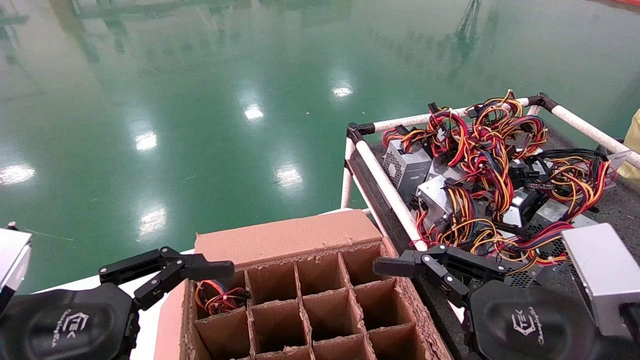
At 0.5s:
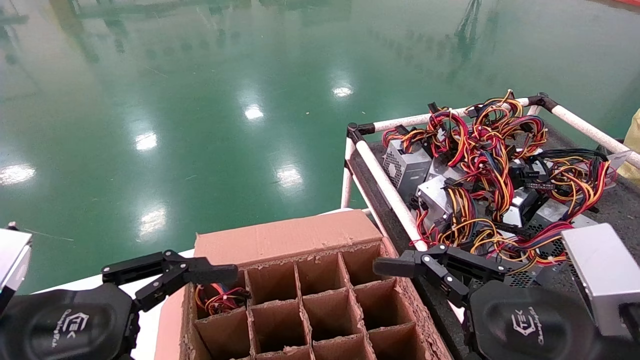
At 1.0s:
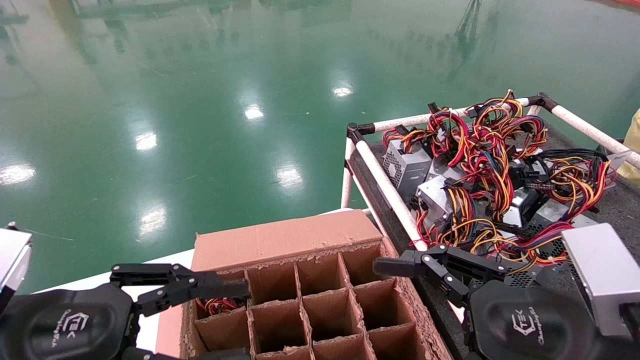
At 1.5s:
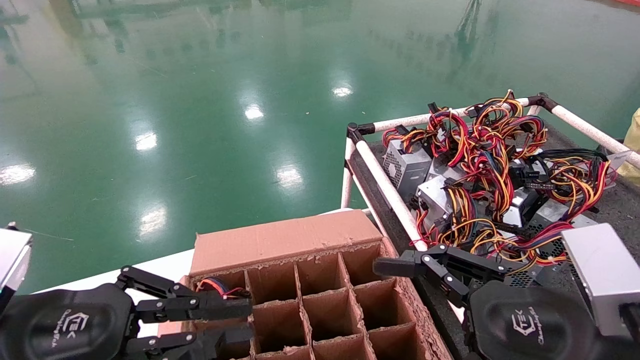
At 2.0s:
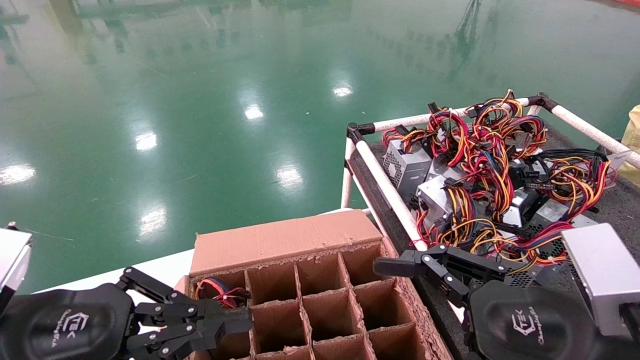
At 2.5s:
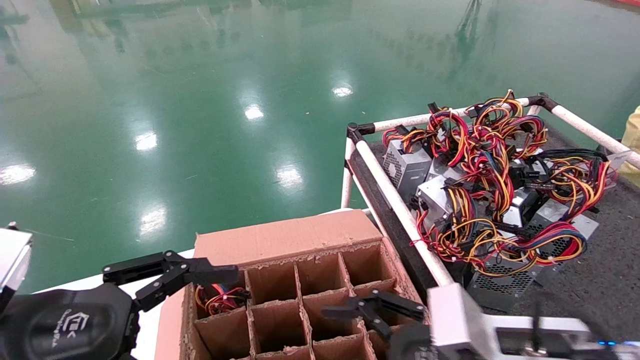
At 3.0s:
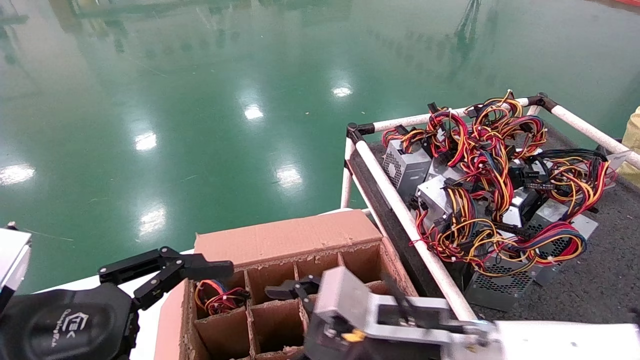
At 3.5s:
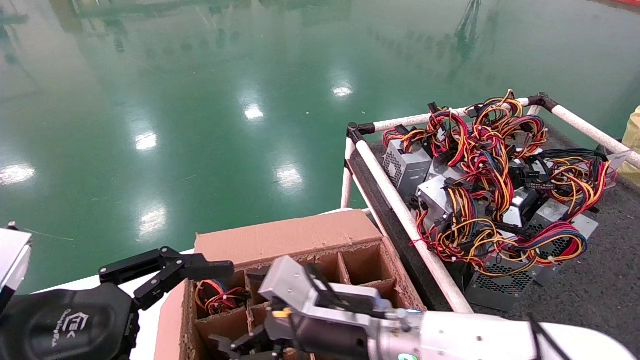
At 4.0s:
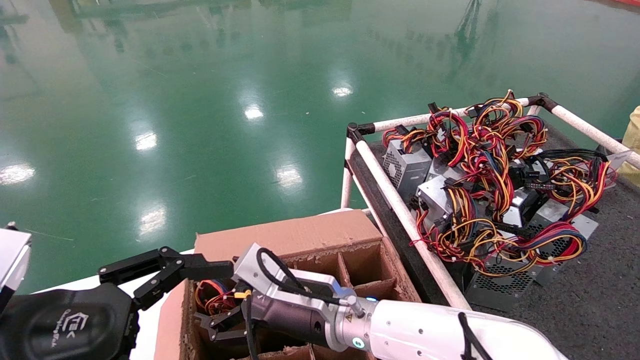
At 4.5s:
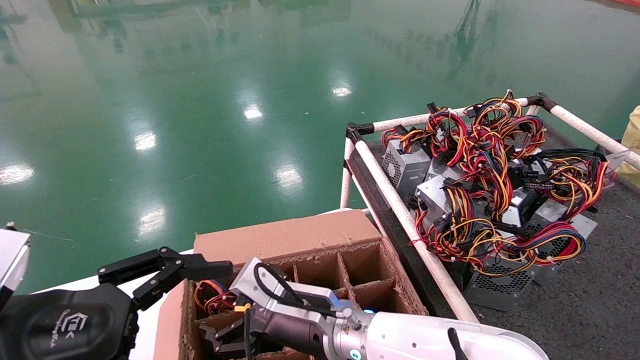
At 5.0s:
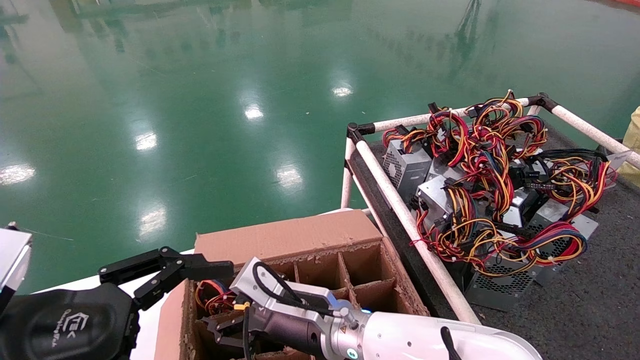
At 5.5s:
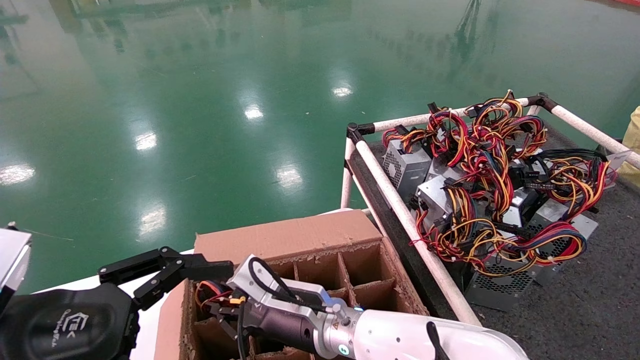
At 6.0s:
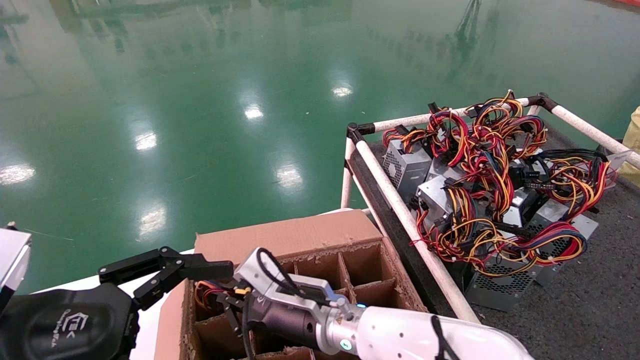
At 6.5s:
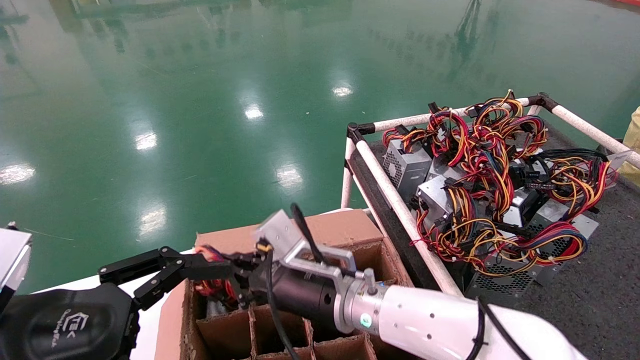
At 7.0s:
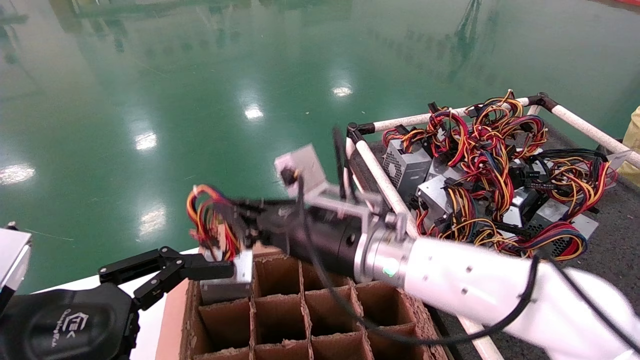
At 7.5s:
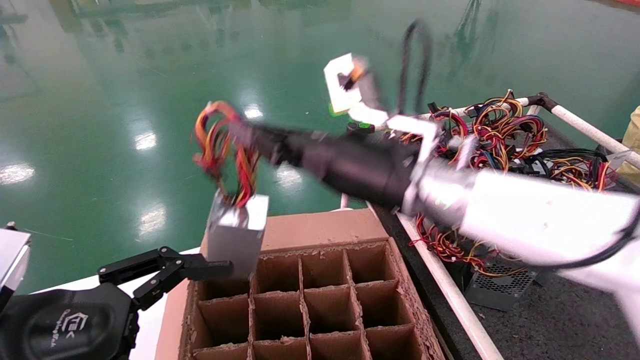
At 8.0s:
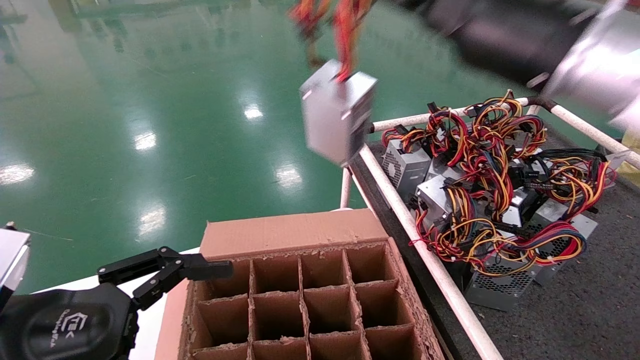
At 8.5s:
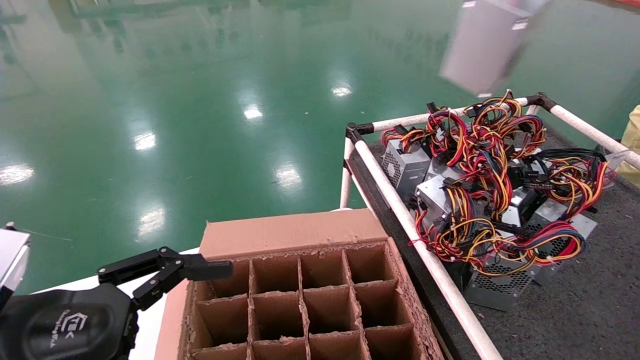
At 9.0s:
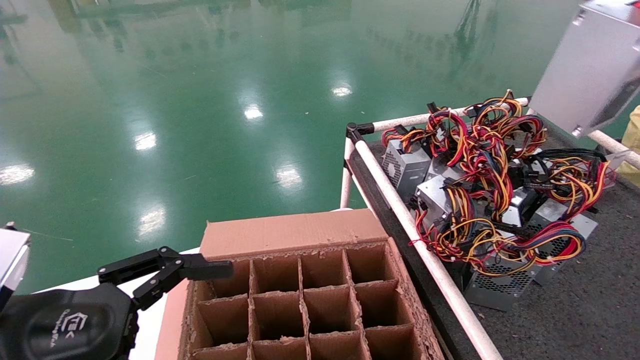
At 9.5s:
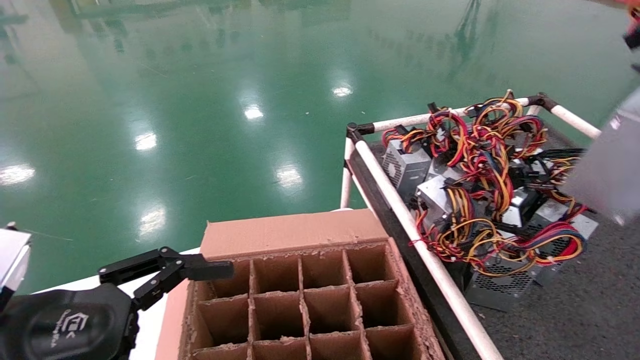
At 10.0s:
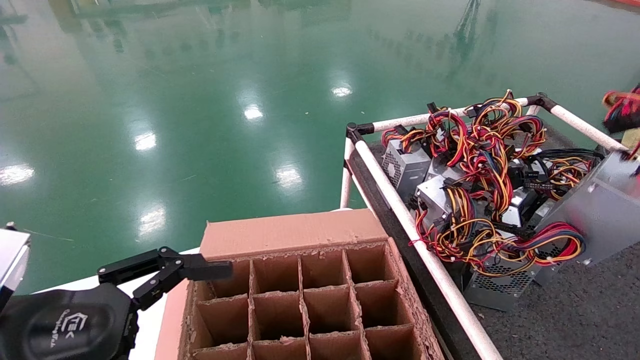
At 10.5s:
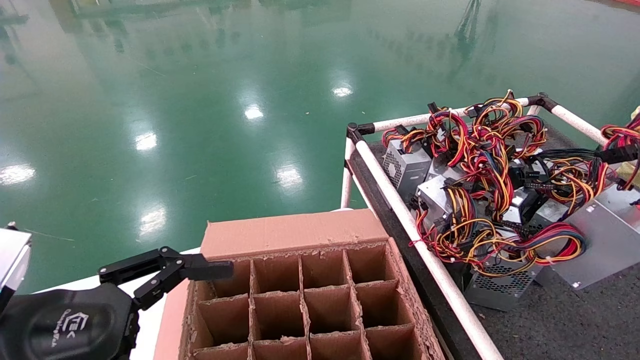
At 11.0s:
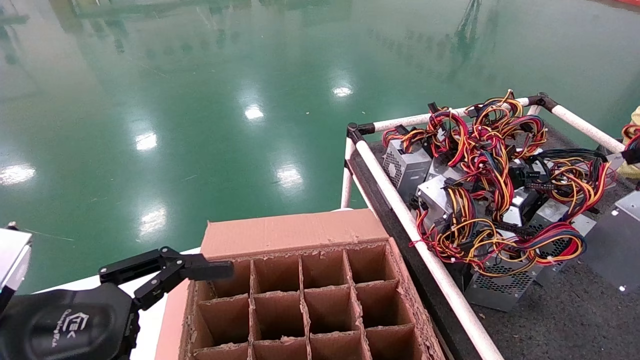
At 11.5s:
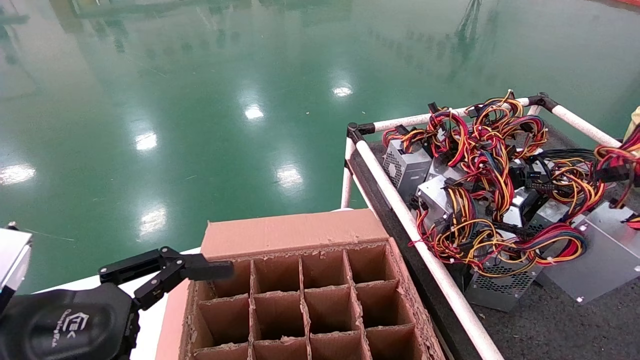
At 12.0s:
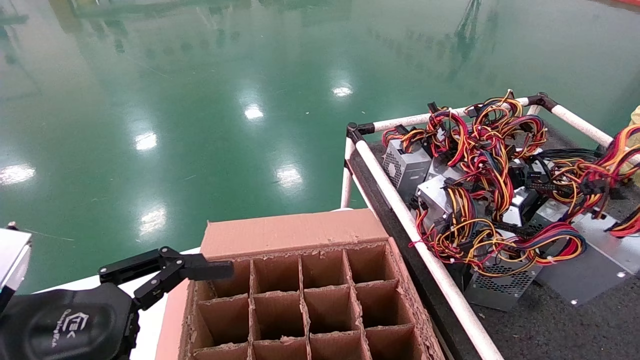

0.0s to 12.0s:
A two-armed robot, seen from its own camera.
Step, 1.5s to 7.0s: Grab and lift the power supply from the large box.
0.0s to 2.0s: The left gripper closes.
2.0s to 4.0s: The right gripper shifts some 15 cm to the left, forward and downward, while the left gripper opens its fingers.
4.0s to 6.0s: The right gripper is displaced to the left and forward by roughly 15 cm.
6.0s to 8.0s: The right gripper heads upward, covering roughly 10 cm, and closes up.
8.0s to 10.0s: The right gripper shifts about 50 cm to the right and upward.
10.0s to 12.0s: The right gripper travels downward and to the right by roughly 25 cm.

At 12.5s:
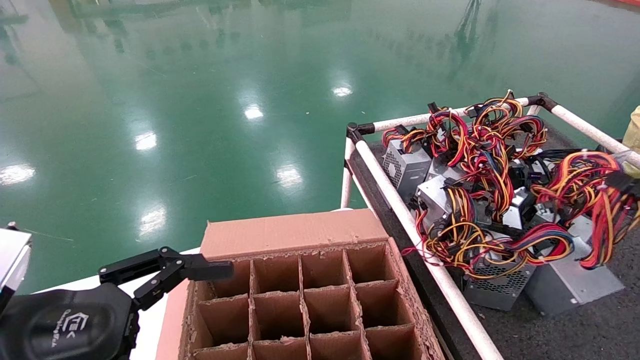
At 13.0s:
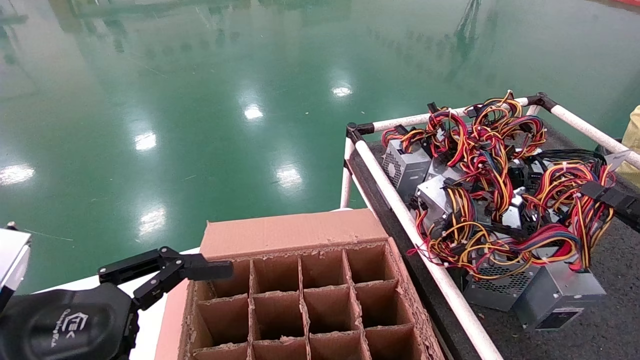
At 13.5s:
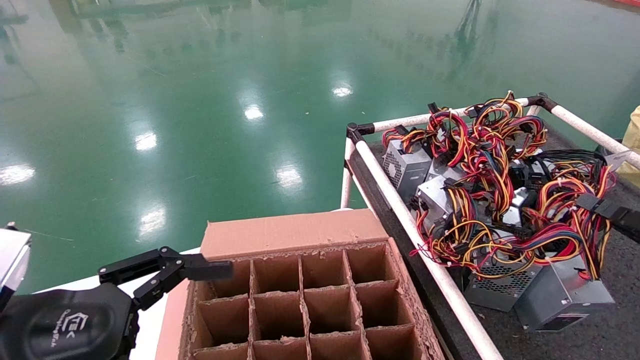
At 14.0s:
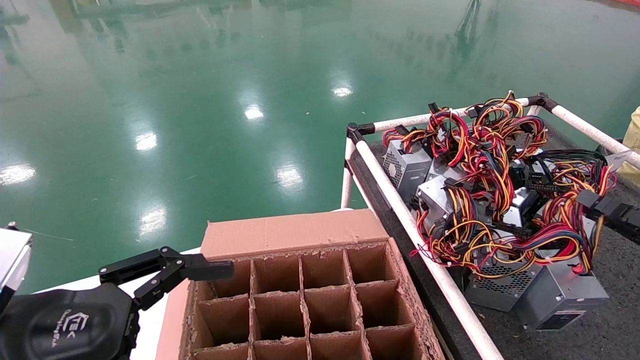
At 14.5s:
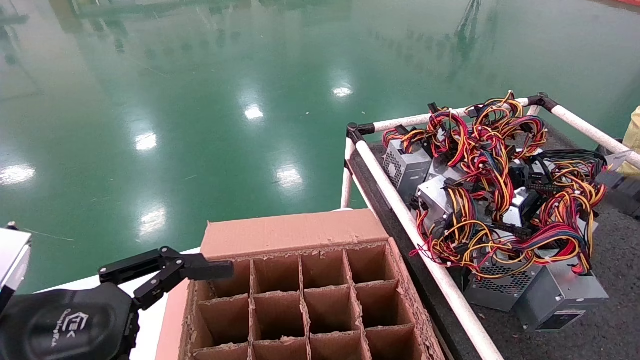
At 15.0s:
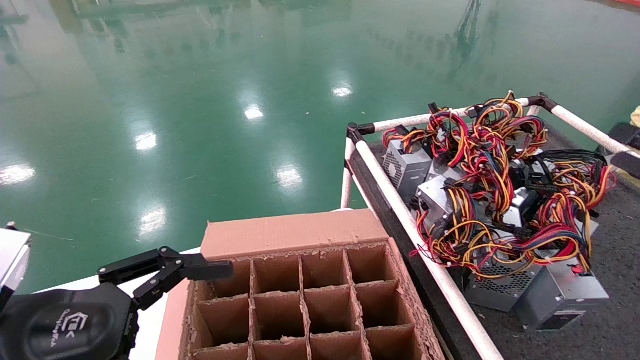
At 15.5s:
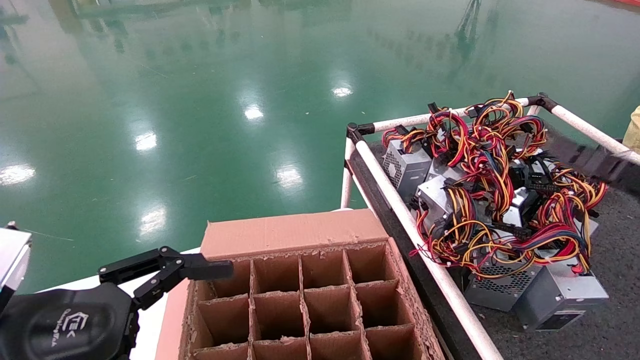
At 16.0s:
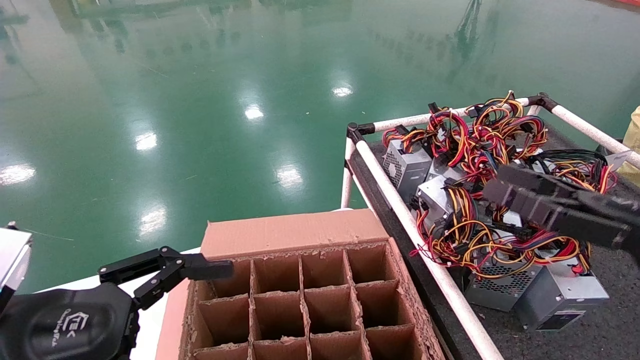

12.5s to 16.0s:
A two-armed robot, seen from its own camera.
Step, 12.5s to 15.0s: Place the power supply on the operating table.
12.5s to 14.5s: The right gripper heads forward and downward, covering roughly 15 cm.
14.5s to 16.0s: The right gripper shifts by about 5 cm, and opens up.
